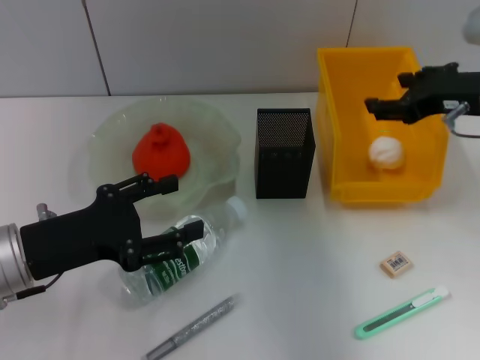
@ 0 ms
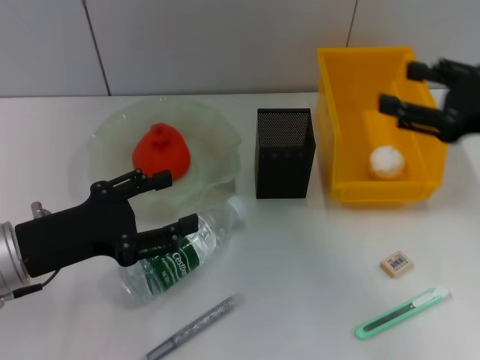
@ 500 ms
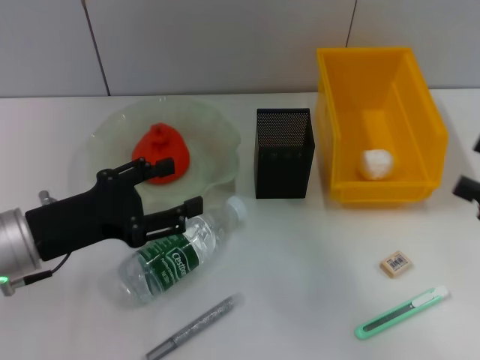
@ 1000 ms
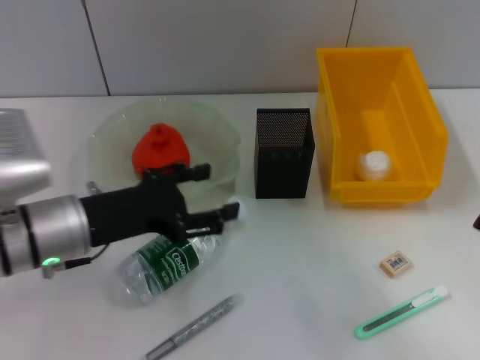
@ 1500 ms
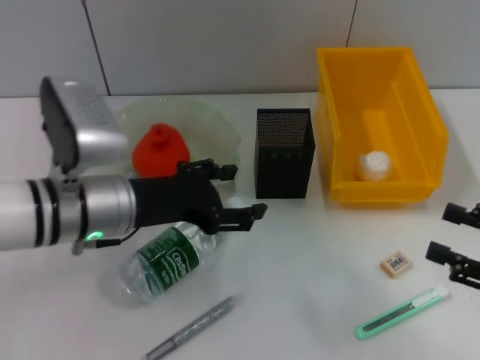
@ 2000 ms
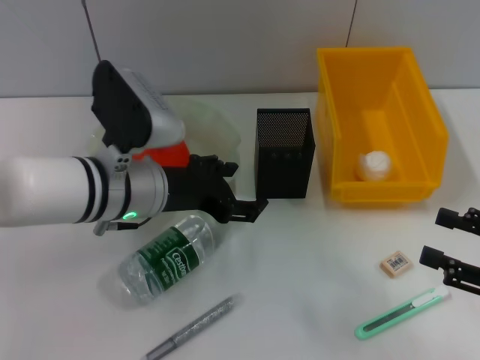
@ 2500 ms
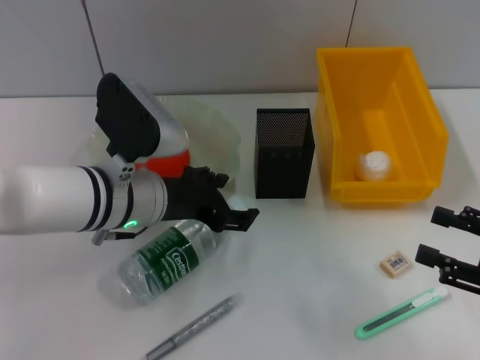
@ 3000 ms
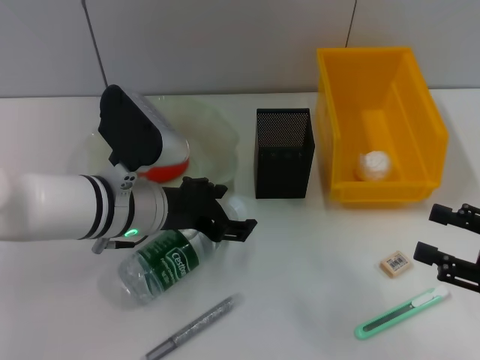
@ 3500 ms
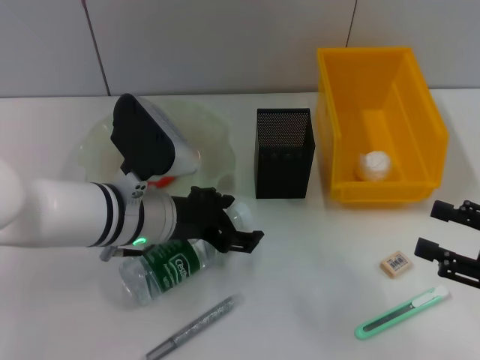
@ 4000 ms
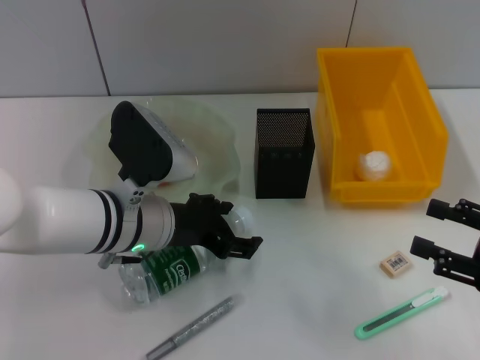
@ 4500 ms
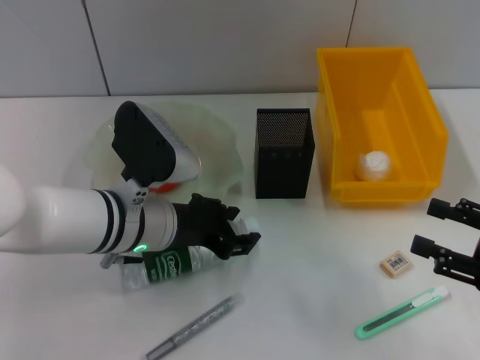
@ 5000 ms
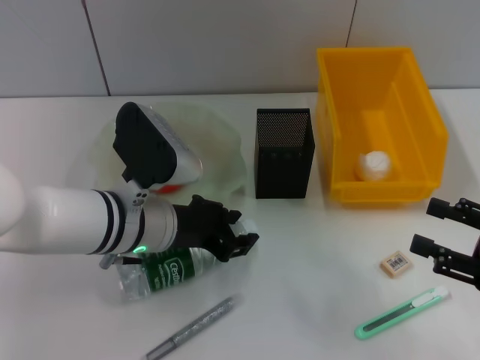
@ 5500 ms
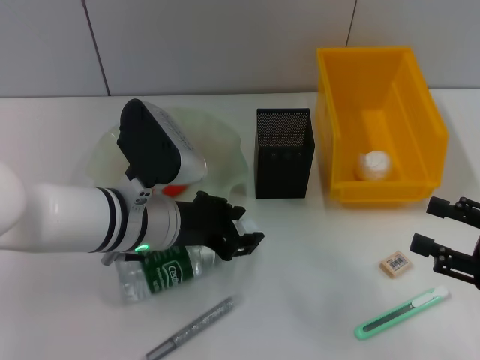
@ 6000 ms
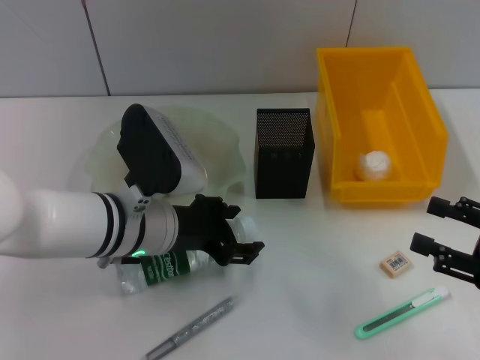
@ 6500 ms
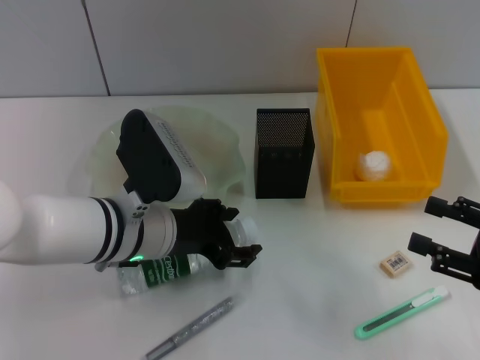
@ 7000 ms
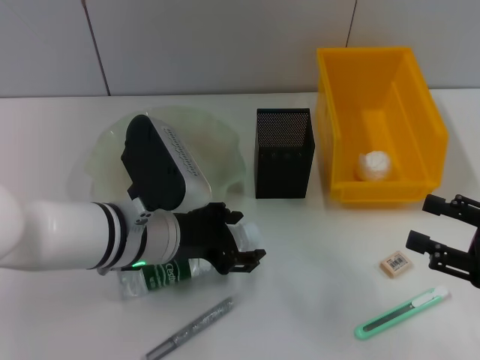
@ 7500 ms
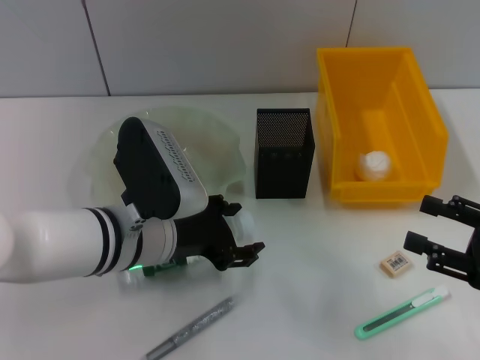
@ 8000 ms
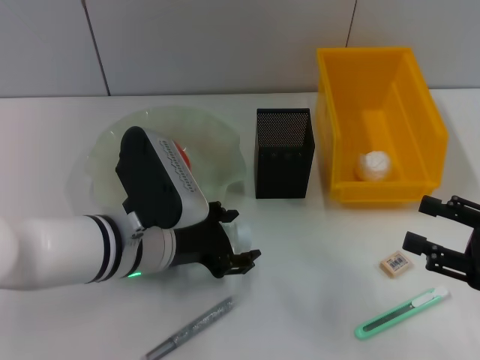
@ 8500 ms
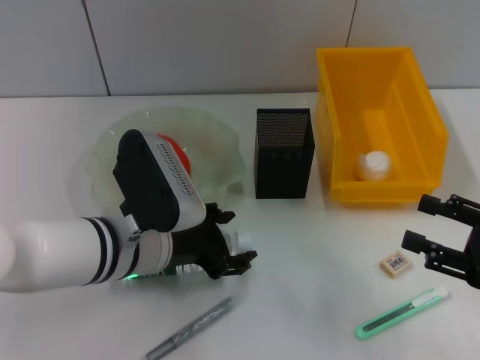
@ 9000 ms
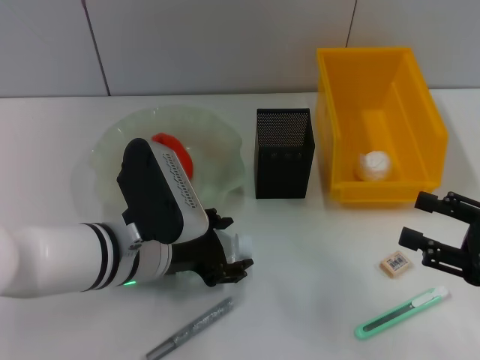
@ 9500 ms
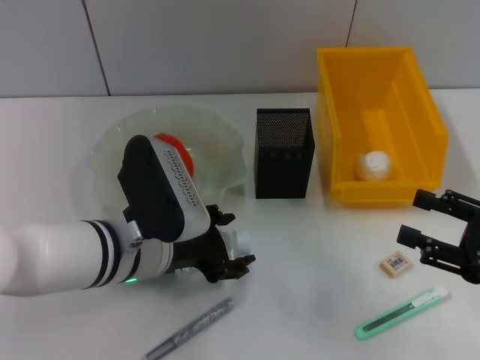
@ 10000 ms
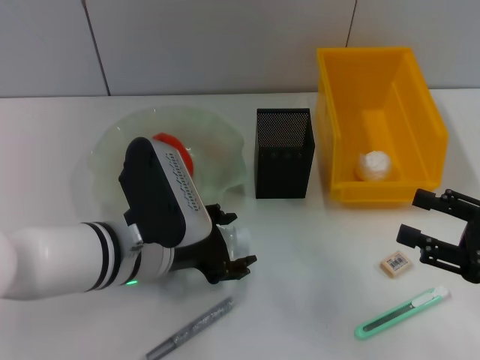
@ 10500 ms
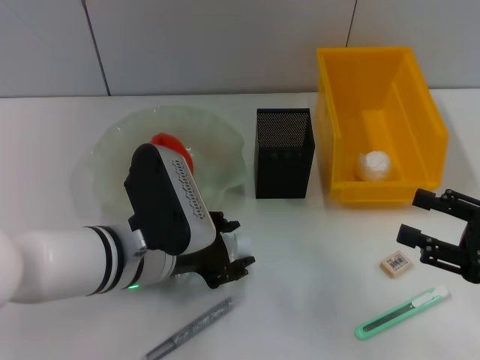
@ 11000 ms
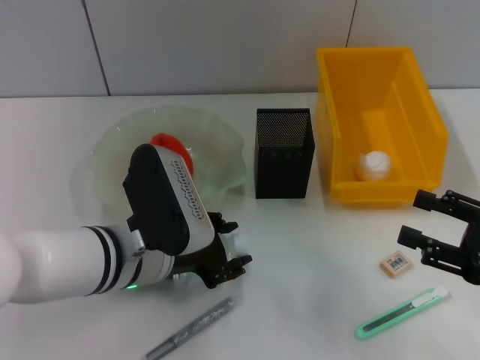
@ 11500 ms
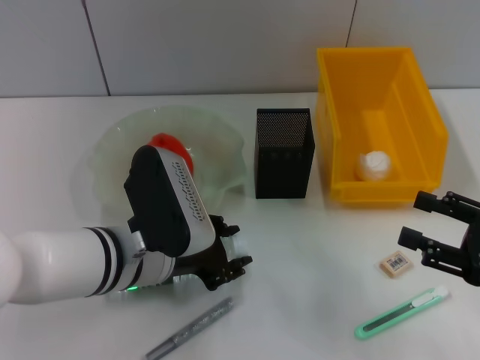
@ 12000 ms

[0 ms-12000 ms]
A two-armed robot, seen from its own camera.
Step, 500 ms to 11500 ms: Grab the water bottle with the left hand.
0 ms to 2000 ms: The left gripper shifts roughly 10 cm to the right and forward. The right gripper travels backward, downward and to the right by approximately 20 cm.
2000 ms to 4000 ms: The grippers make only small movements.
4000 ms to 6000 ms: The left gripper closes.
6000 ms to 8000 ms: The left gripper opens its fingers.
8000 ms to 10000 ms: The grippers make only small movements.
10000 ms to 12000 ms: The left gripper closes up.

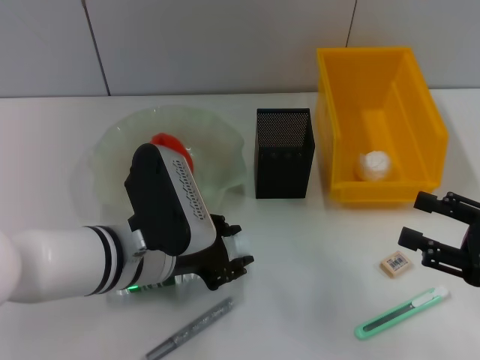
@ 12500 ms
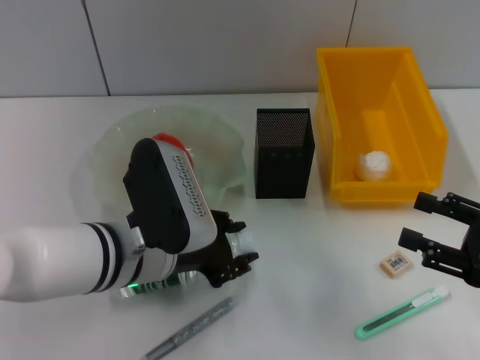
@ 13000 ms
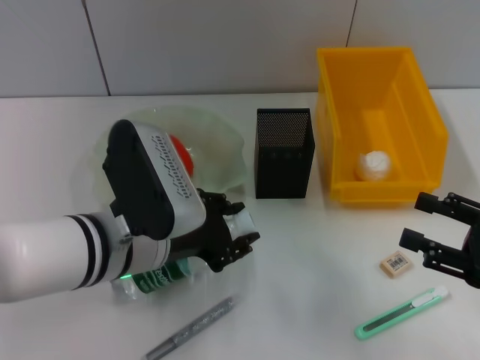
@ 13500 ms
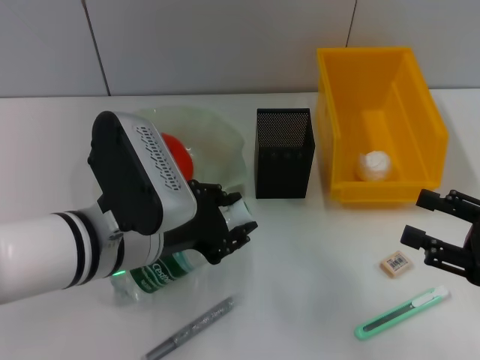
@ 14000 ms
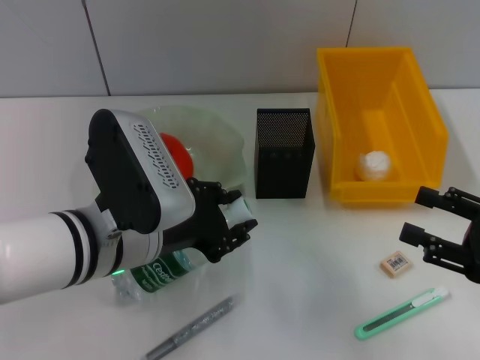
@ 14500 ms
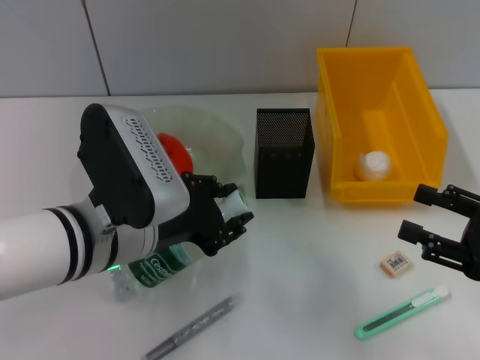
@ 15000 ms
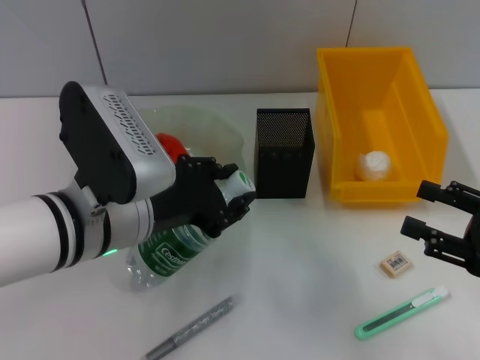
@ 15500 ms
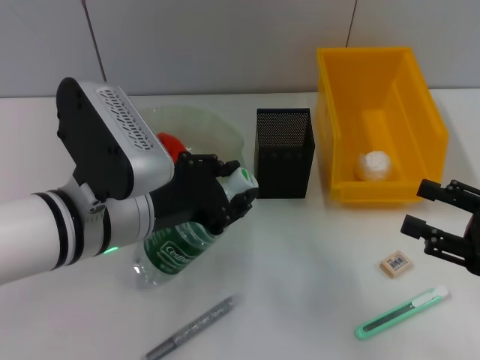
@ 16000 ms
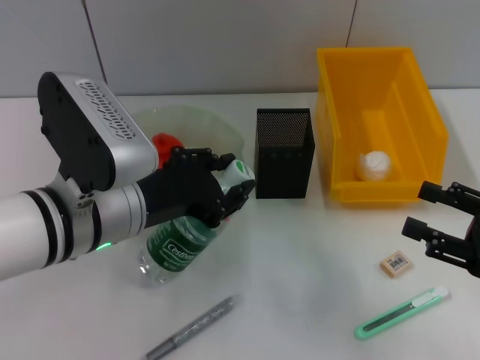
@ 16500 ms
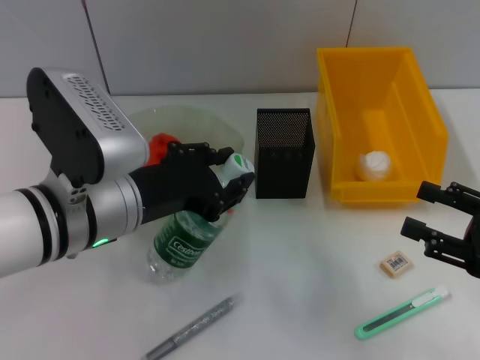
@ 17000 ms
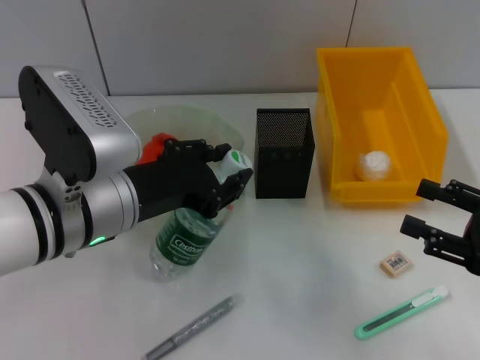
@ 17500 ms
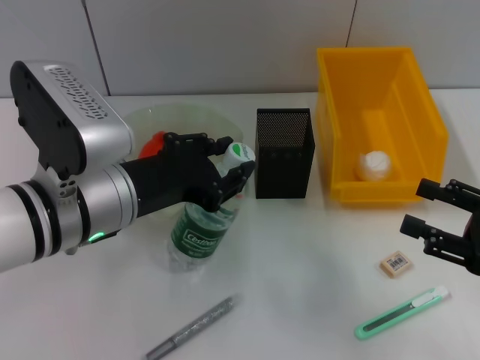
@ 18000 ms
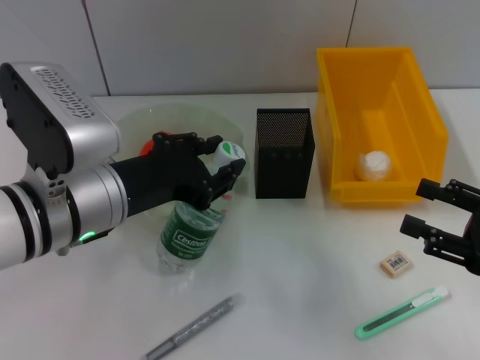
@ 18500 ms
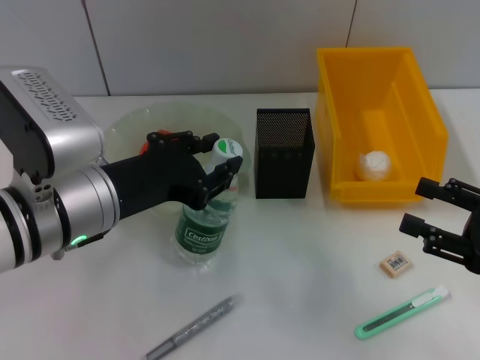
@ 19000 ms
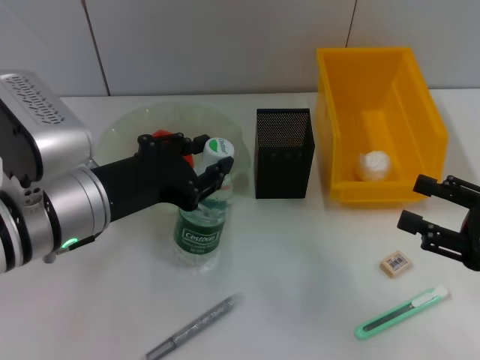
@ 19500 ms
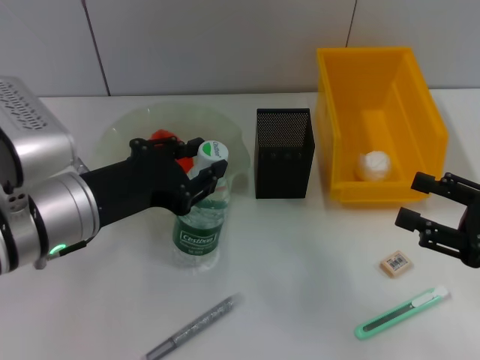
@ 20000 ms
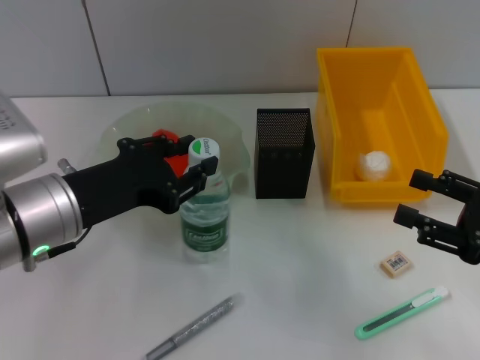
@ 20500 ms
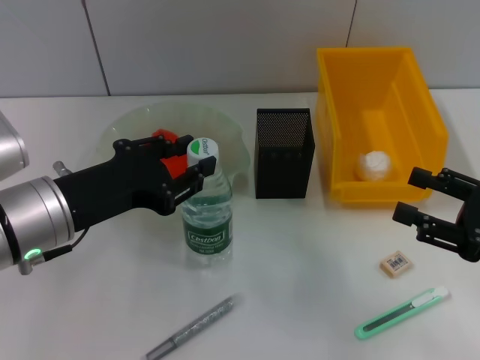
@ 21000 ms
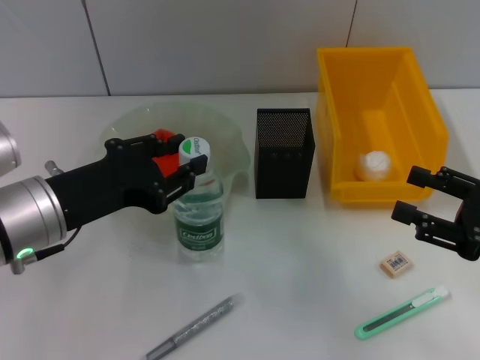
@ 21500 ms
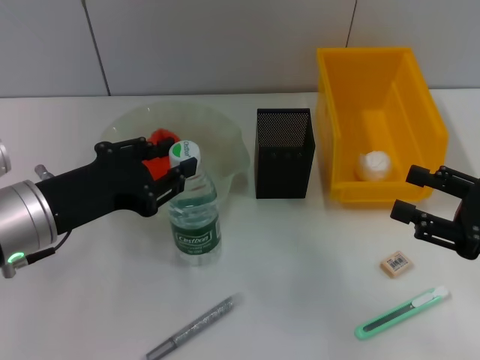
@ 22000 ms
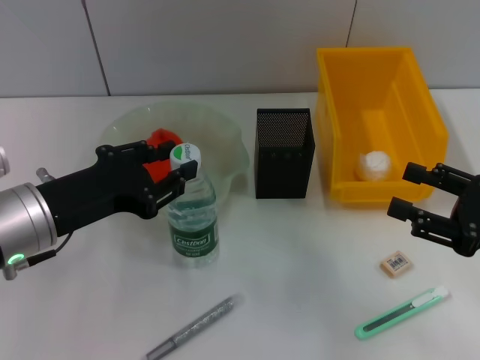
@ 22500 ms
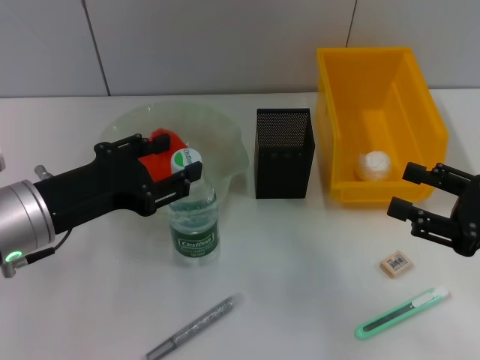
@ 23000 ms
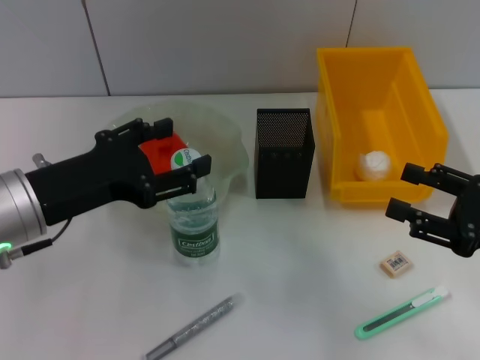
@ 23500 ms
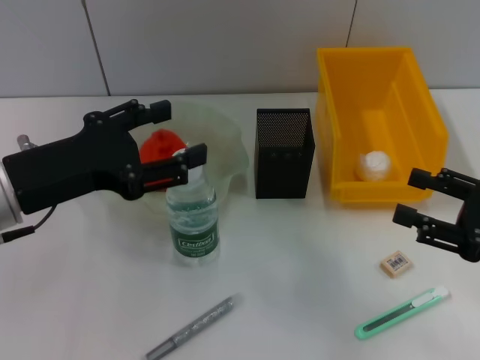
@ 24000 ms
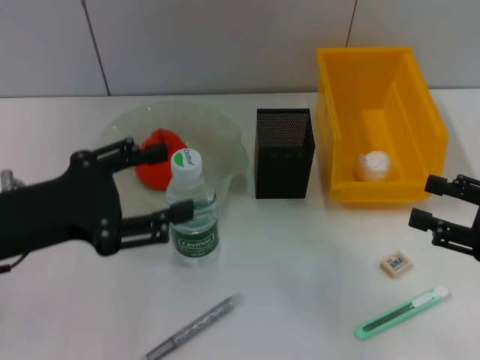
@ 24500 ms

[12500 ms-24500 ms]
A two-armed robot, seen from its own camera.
Step, 12500 ms to 24000 ms: Place the water bottle on the table with the left hand.
12500 ms to 14500 ms: There are only small adjustments of the grippers.
14500 ms to 18500 ms: The grippers move only a little.
18500 ms to 20500 ms: There are only small adjustments of the grippers.
20500 ms to 22500 ms: The grippers move only a little.
22500 ms to 24500 ms: The left gripper opens its fingers.

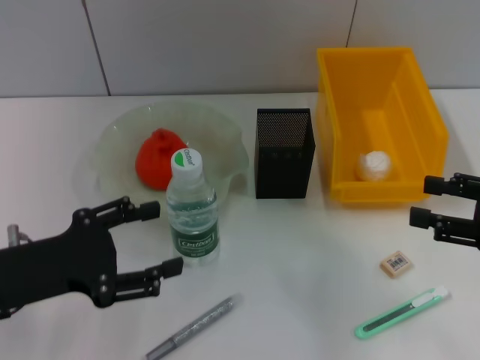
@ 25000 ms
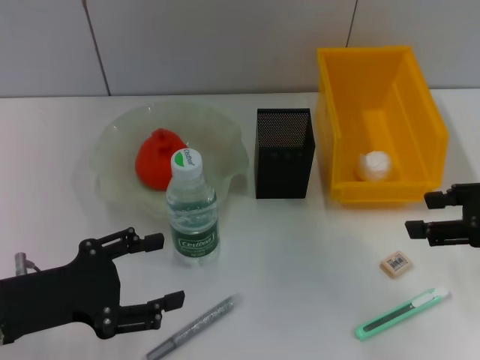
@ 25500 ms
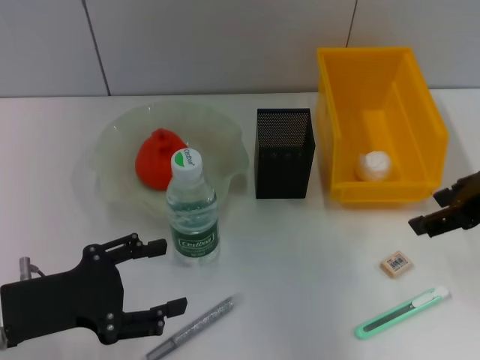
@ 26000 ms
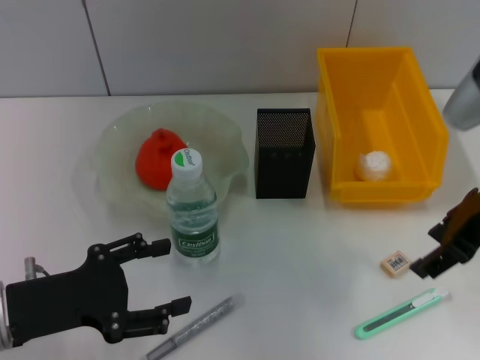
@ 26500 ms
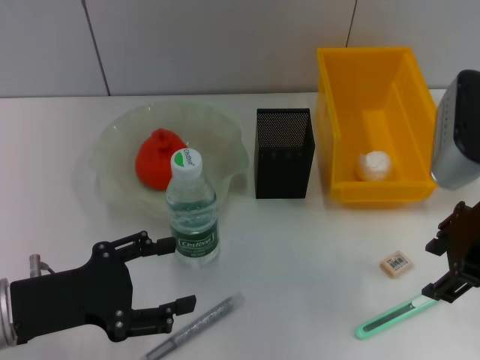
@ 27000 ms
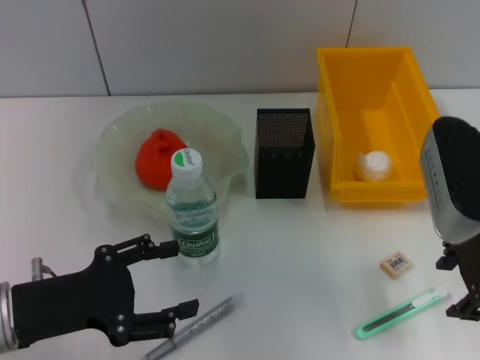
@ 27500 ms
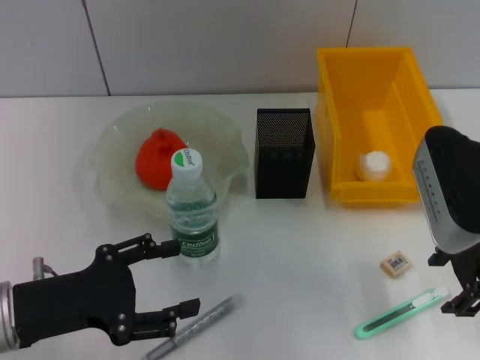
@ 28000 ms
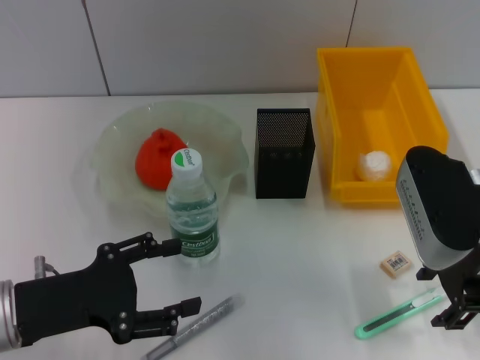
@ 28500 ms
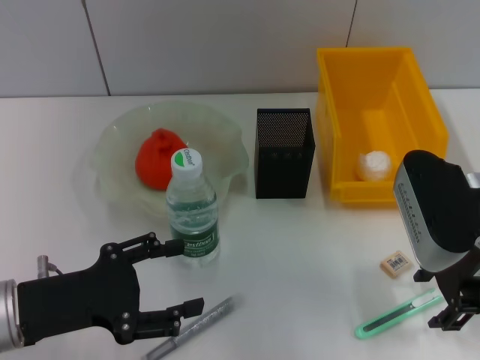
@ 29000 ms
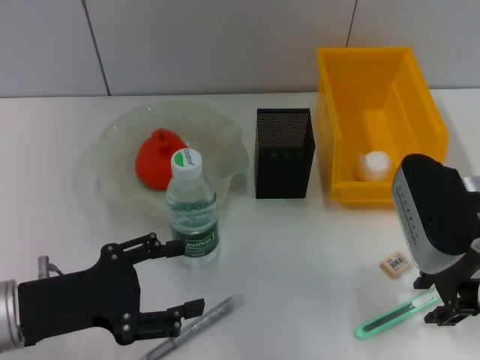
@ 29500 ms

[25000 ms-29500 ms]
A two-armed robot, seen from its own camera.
25000 ms to 27000 ms: The right gripper is displaced to the left, upward and forward by roughly 15 cm.
27000 ms to 29500 ms: The right gripper travels downward by approximately 5 cm.
